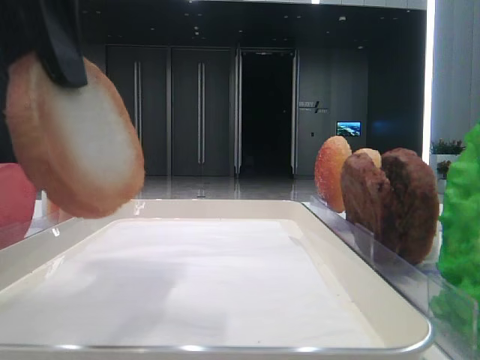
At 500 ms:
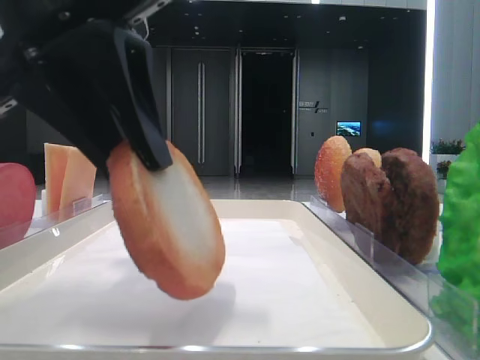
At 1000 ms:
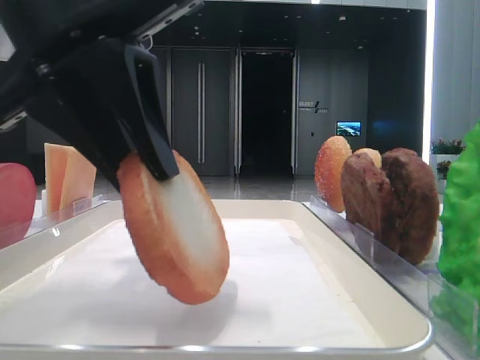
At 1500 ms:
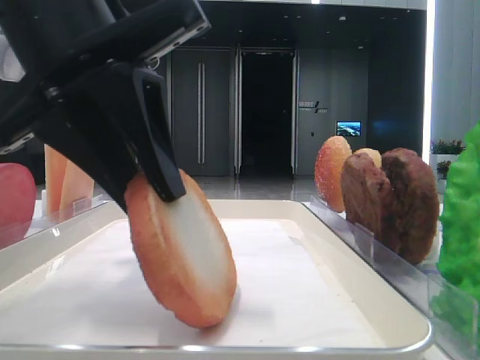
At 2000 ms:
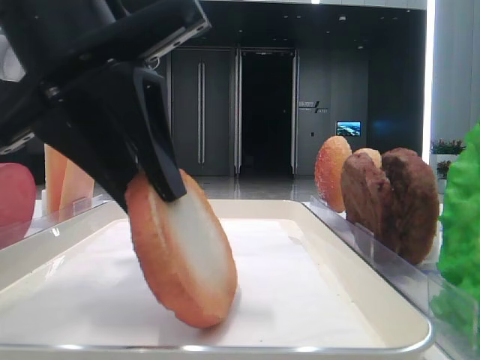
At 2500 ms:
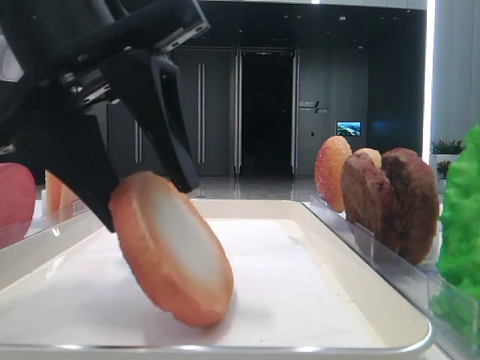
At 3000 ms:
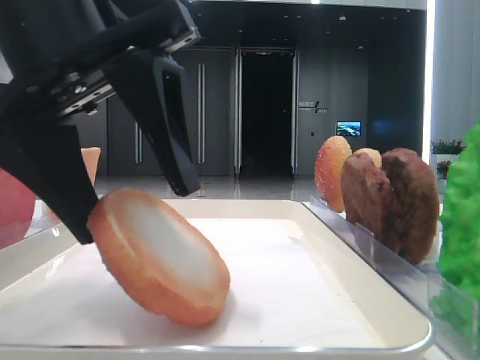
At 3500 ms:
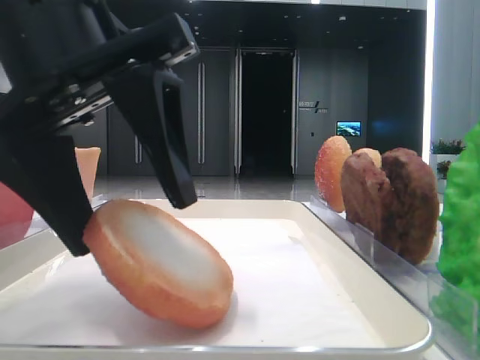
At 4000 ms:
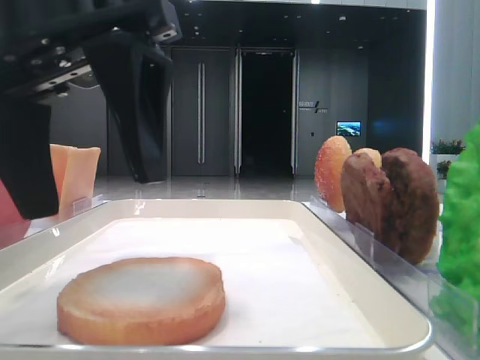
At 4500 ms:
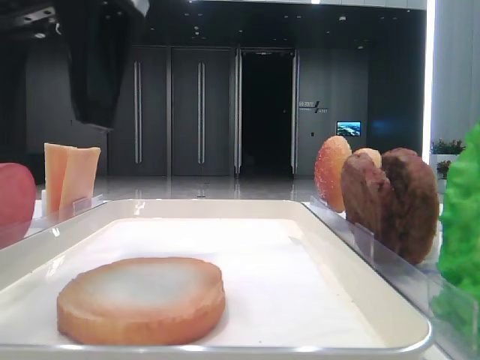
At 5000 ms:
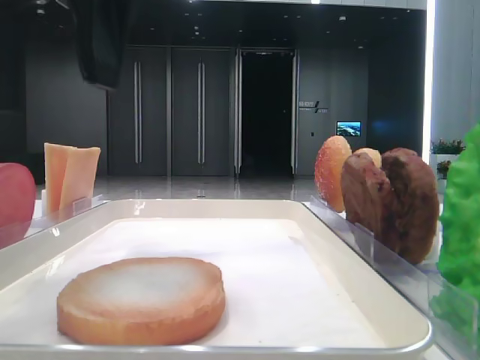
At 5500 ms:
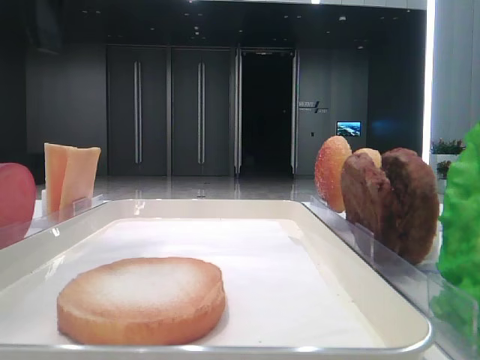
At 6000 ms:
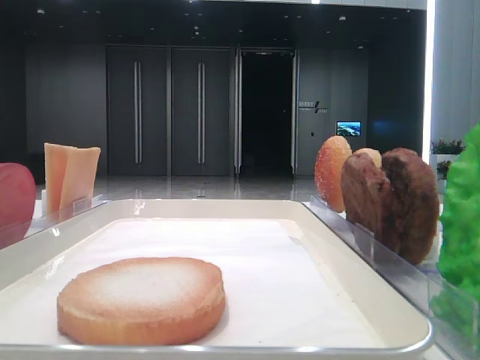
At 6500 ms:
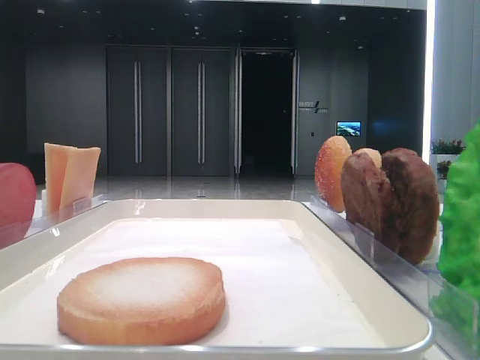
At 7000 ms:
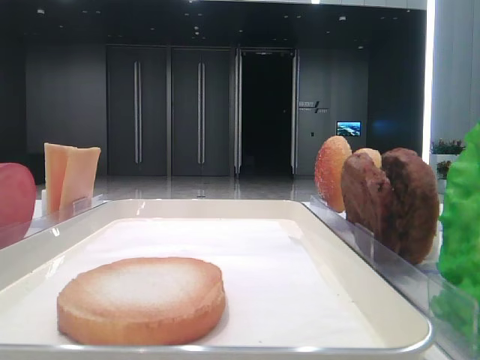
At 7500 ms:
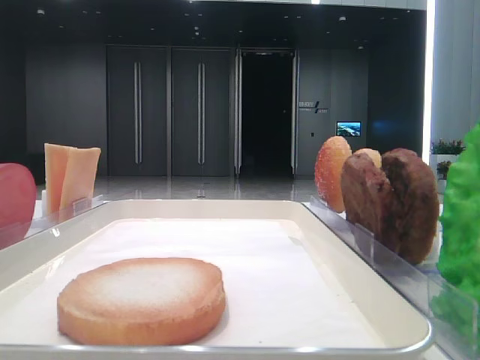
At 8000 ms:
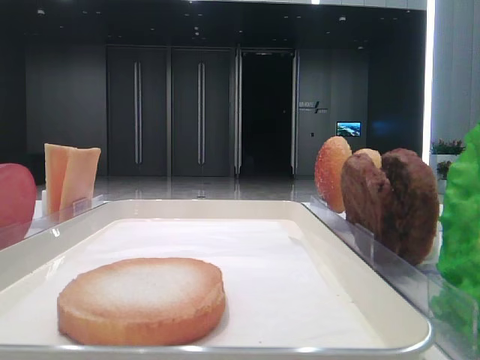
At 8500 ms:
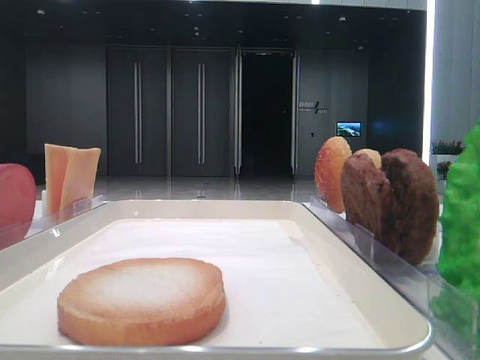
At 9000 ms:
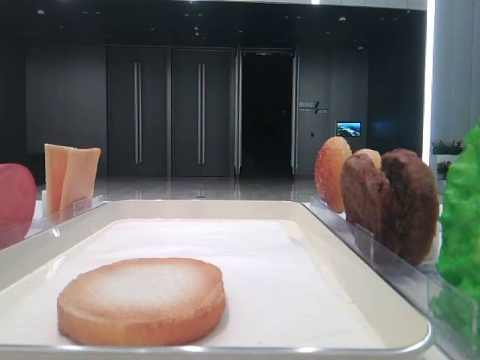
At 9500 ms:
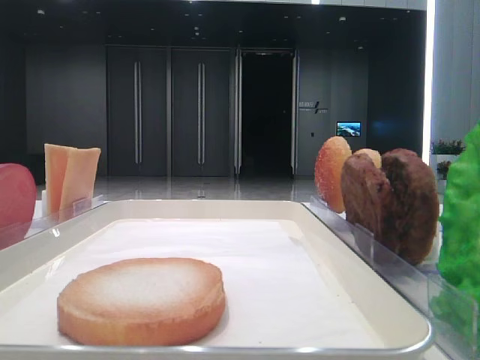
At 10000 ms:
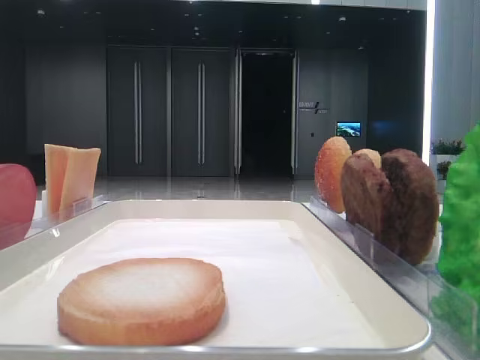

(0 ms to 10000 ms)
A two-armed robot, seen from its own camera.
Step, 0 ms - 3500 ms: Place the bread on the tray with the left hand.
0 ms - 2000 ms: The left gripper moves downward, roughly 5 cm.
2000 ms - 4000 ms: The left gripper opens.
4000 ms - 6000 ms: The left gripper travels to the left and upward by roughly 20 cm.

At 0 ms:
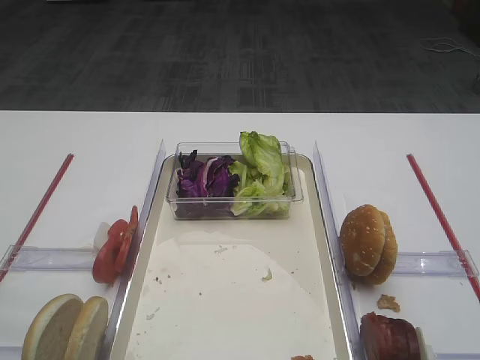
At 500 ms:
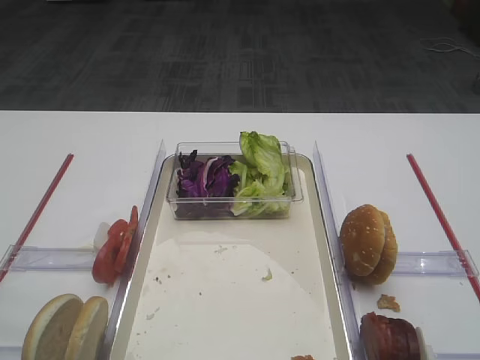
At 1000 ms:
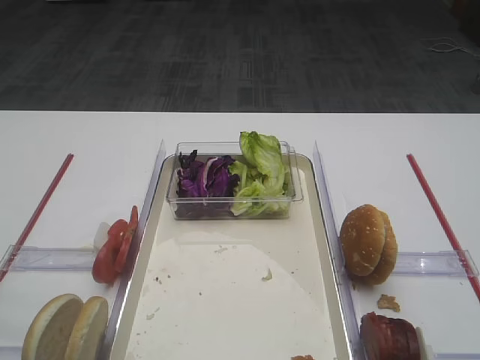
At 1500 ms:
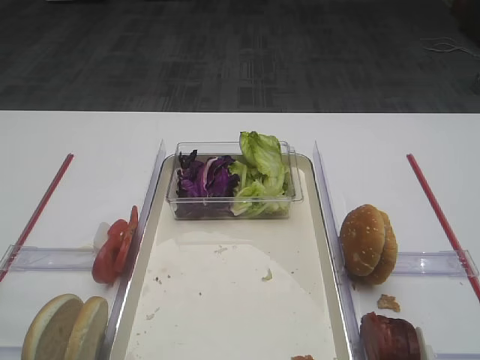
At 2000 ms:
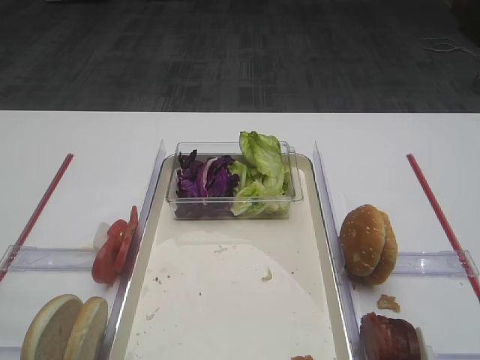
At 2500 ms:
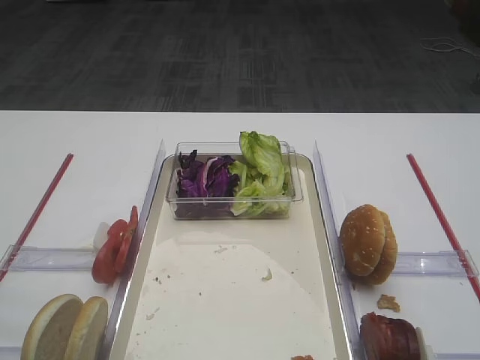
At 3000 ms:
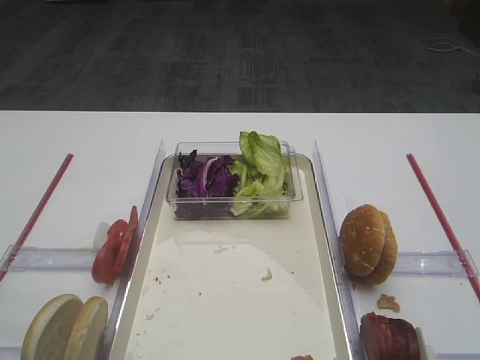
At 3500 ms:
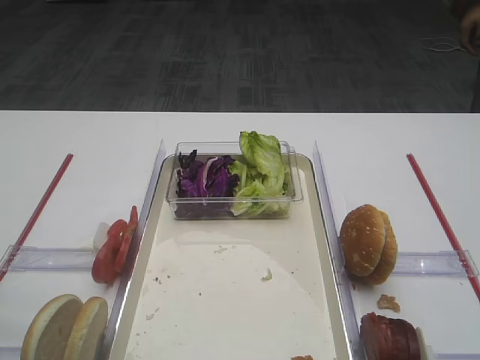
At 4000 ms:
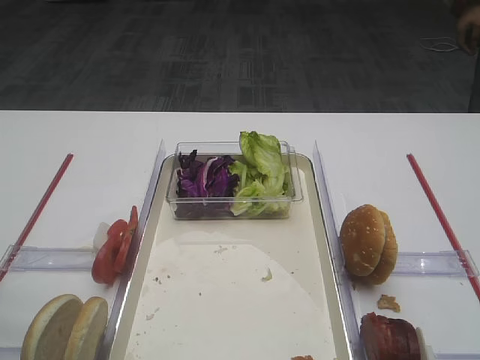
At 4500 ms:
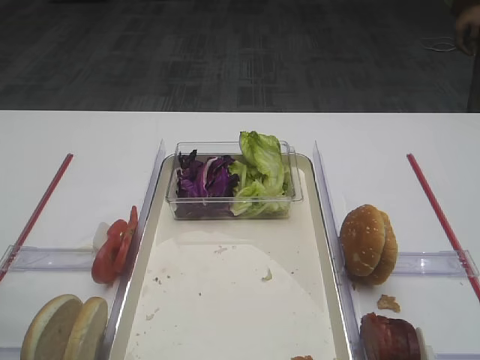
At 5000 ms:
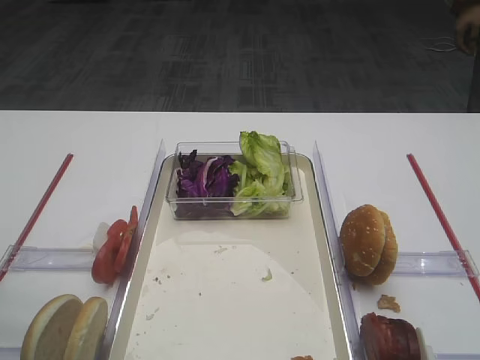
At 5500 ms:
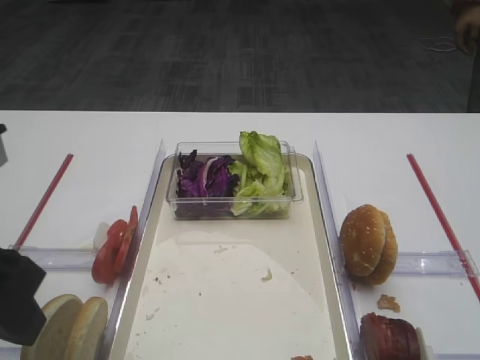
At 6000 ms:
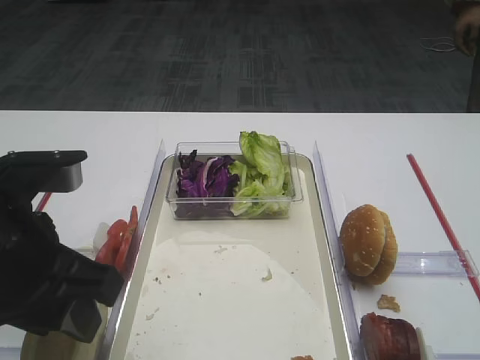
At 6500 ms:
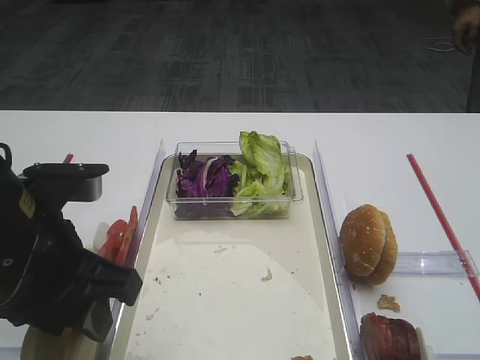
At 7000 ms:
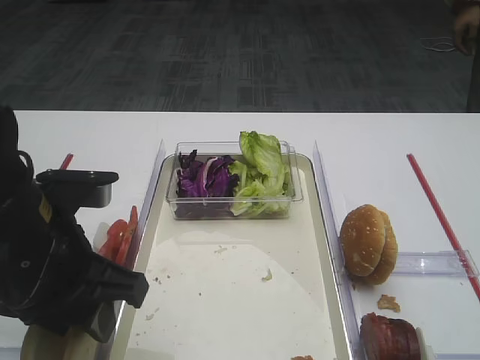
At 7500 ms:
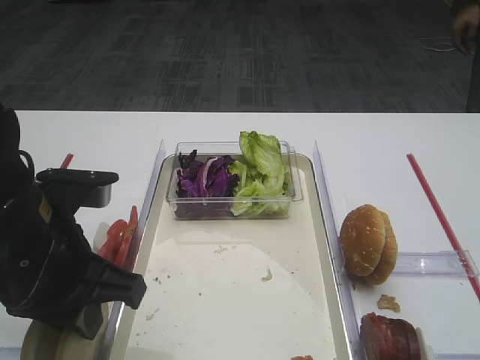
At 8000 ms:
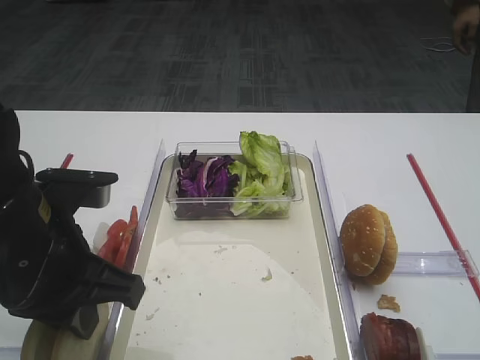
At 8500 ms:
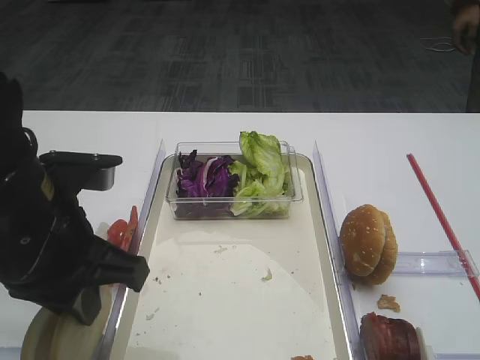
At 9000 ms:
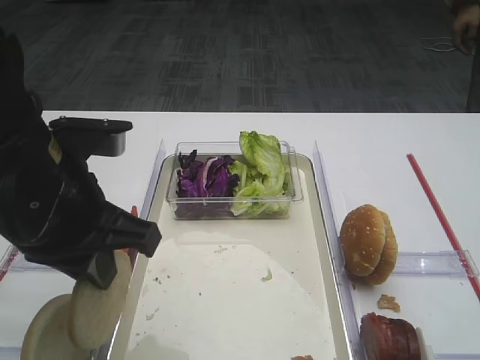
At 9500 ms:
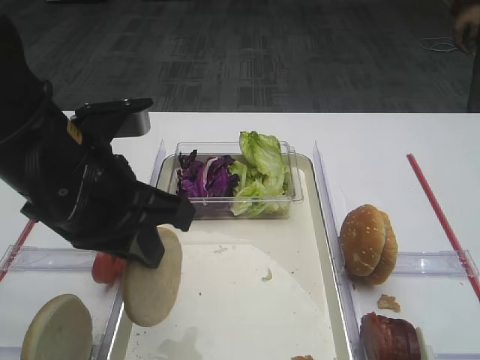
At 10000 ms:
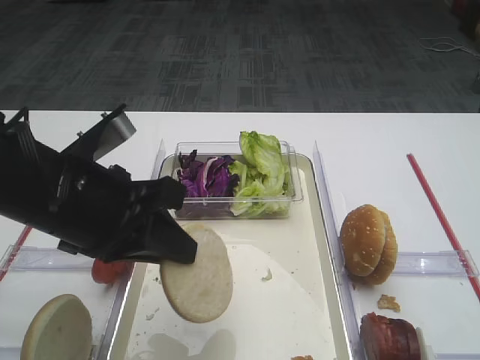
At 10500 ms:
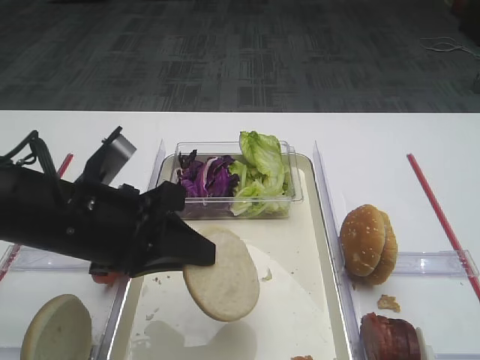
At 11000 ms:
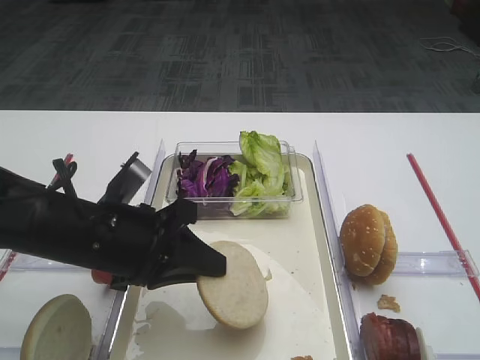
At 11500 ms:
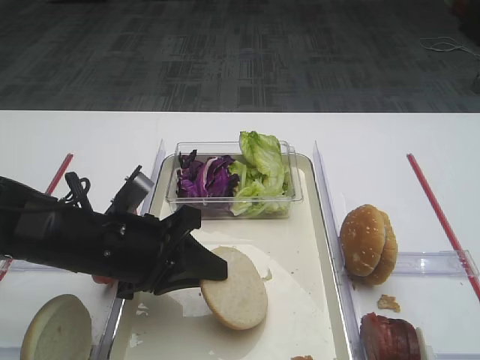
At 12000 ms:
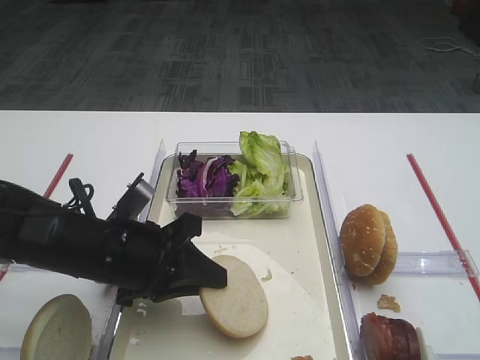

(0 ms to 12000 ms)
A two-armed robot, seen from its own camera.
Step, 0 ms - 9000 ms: Pick up the bread slice with the left gripper.
4000 ms - 6000 ms: The left gripper heads to the right, covering some 10 cm.
6000 ms - 8000 ms: The left gripper closes.
10000 ms - 12000 ms: The left gripper moves downward, roughly 10 cm.

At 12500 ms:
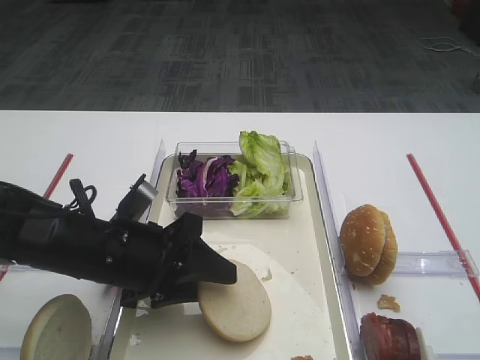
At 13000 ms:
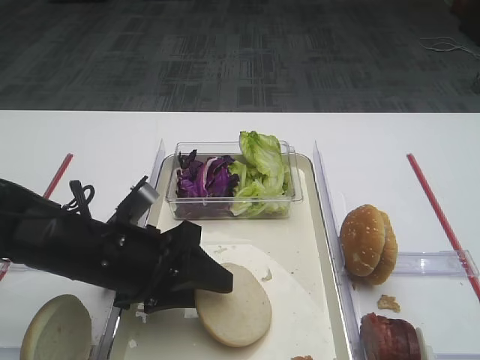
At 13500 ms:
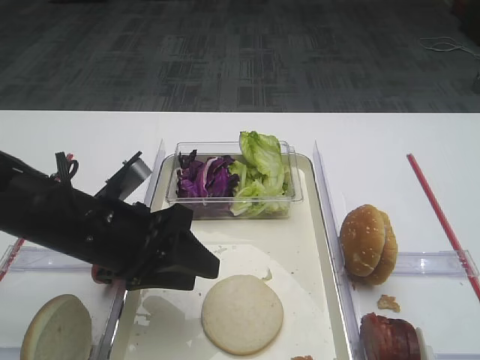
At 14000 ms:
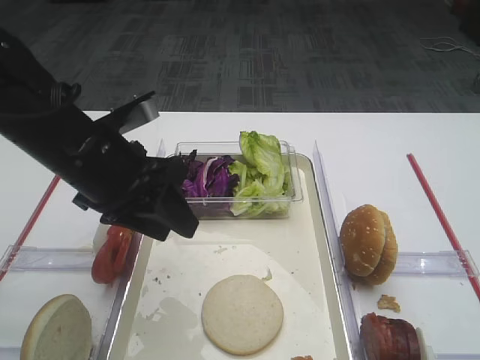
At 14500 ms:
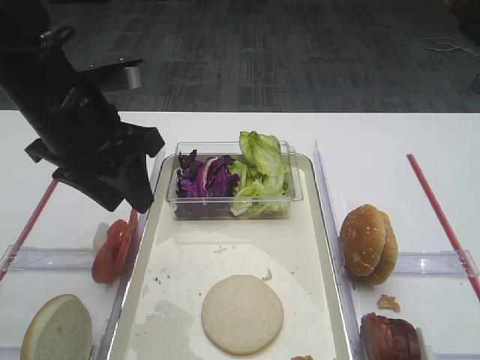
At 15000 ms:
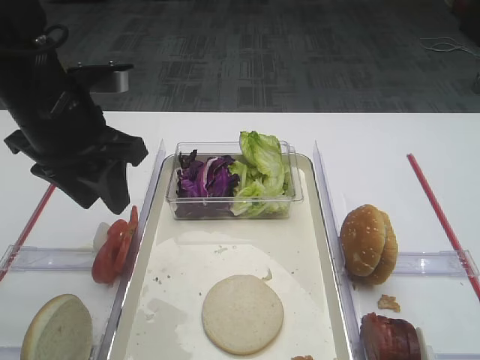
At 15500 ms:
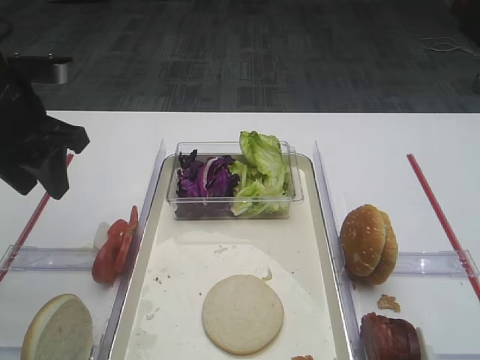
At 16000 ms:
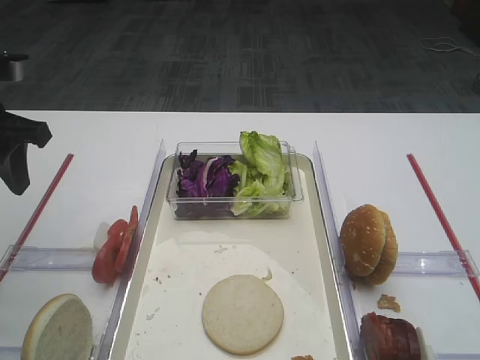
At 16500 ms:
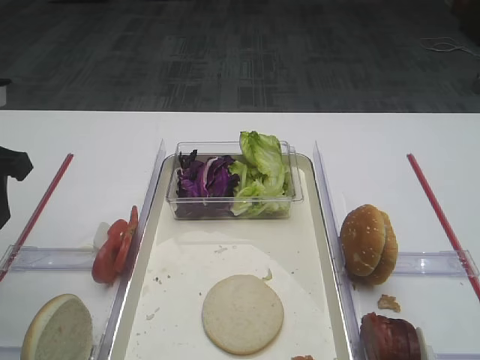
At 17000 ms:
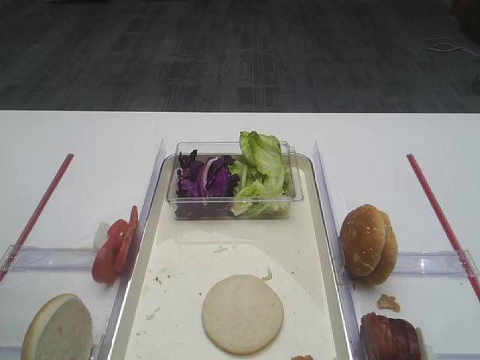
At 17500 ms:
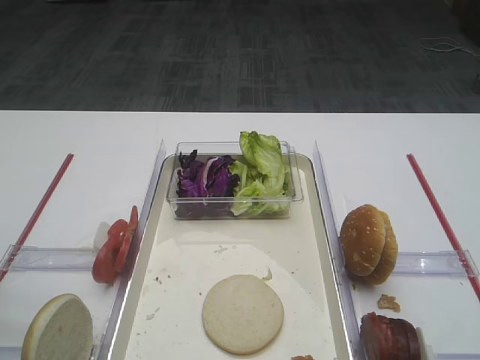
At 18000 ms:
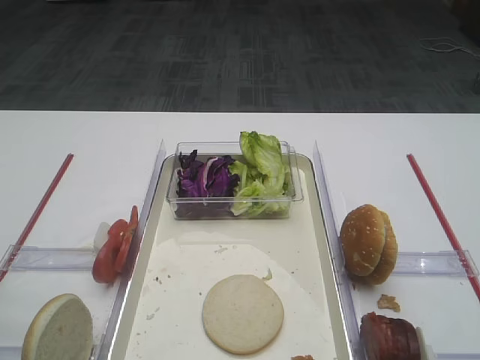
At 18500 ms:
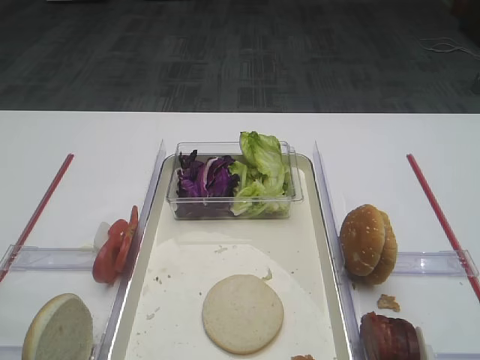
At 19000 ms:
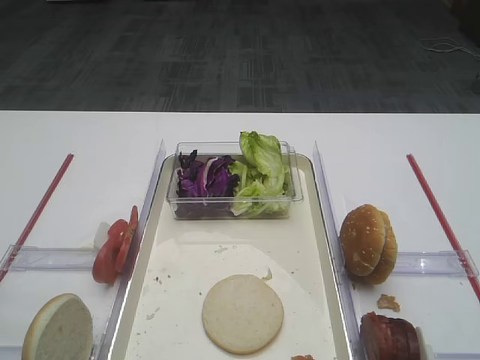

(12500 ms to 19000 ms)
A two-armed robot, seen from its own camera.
12500 ms - 14500 ms: The left gripper goes roughly 15 cm upward and forward.
14500 ms - 17000 ms: The left gripper moves to the left and backward, approximately 15 cm.
